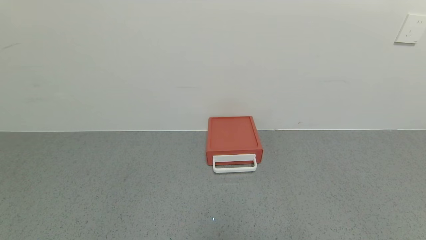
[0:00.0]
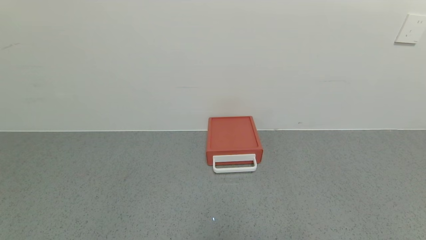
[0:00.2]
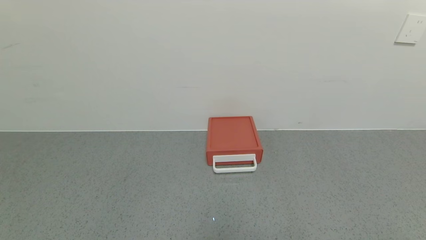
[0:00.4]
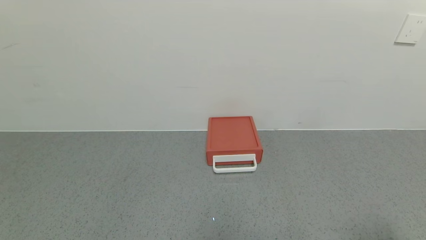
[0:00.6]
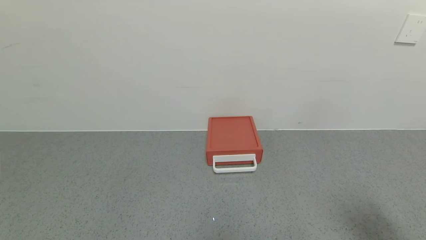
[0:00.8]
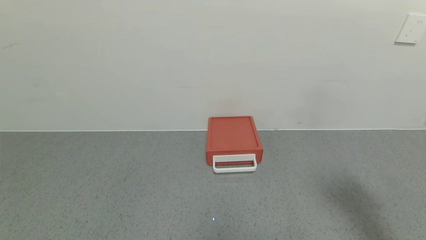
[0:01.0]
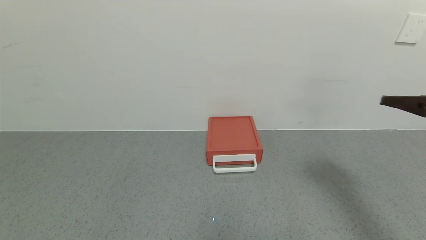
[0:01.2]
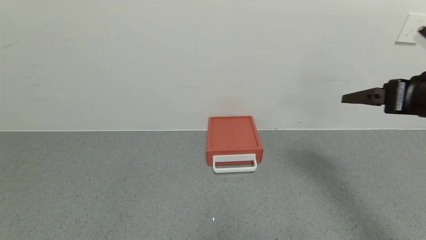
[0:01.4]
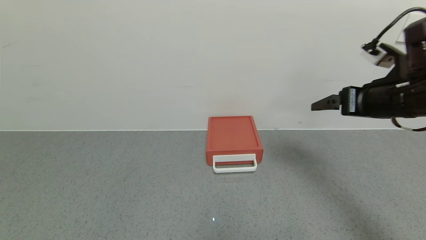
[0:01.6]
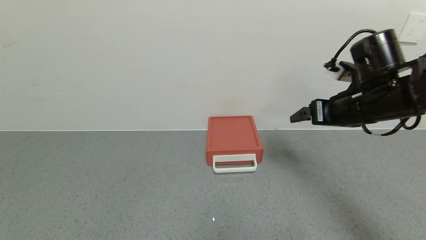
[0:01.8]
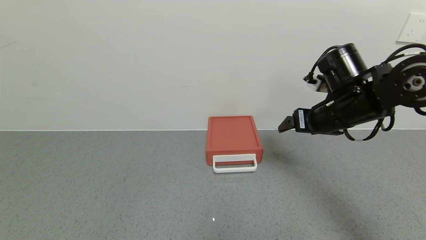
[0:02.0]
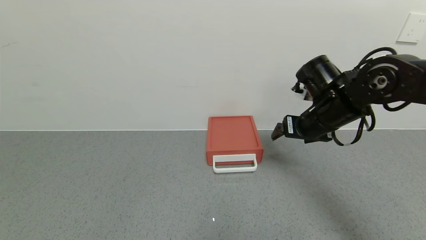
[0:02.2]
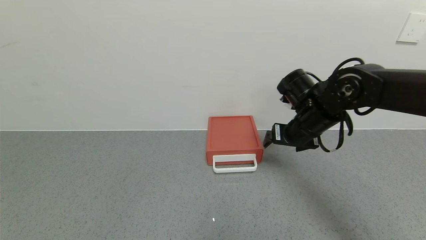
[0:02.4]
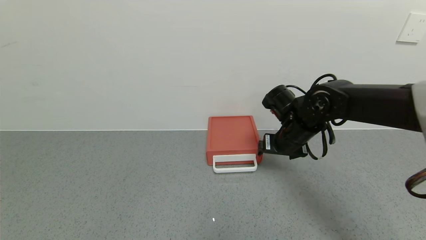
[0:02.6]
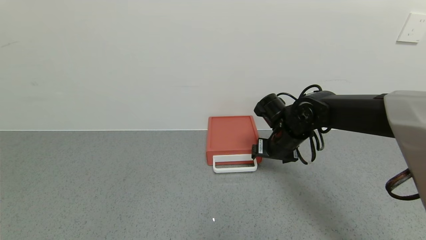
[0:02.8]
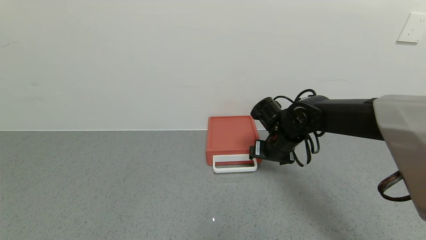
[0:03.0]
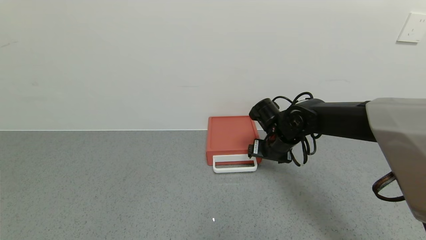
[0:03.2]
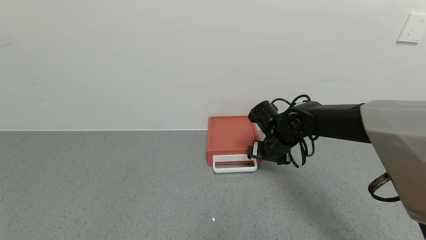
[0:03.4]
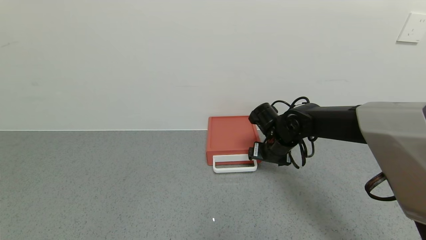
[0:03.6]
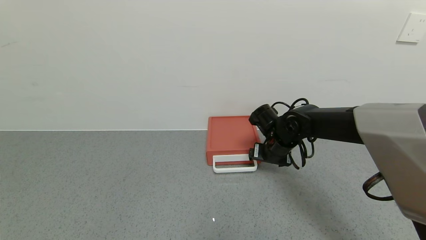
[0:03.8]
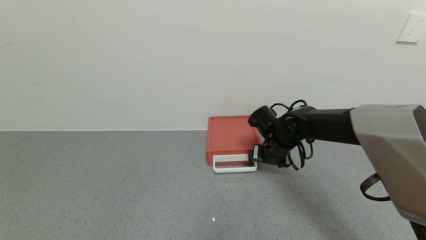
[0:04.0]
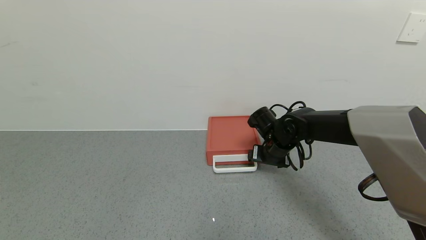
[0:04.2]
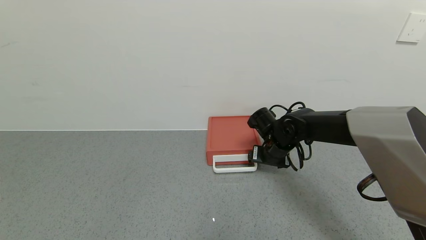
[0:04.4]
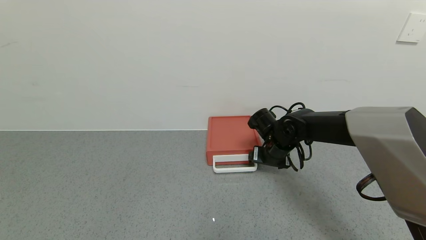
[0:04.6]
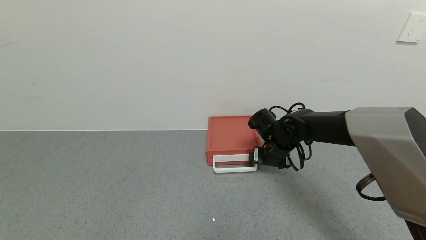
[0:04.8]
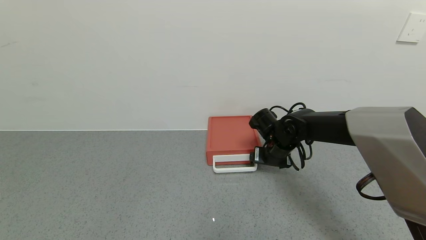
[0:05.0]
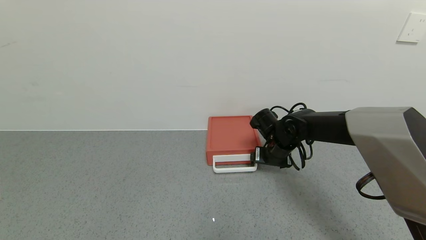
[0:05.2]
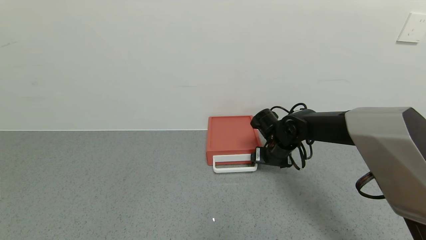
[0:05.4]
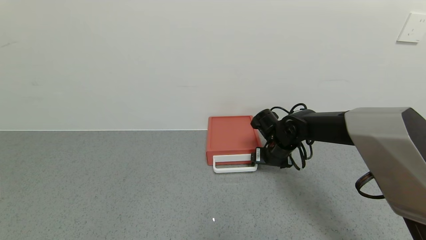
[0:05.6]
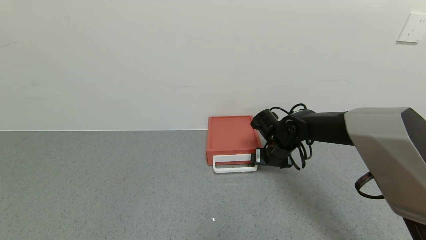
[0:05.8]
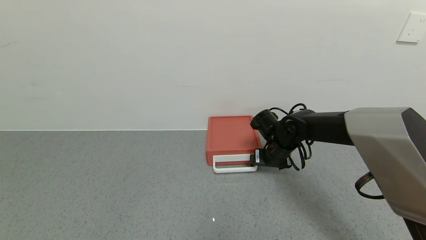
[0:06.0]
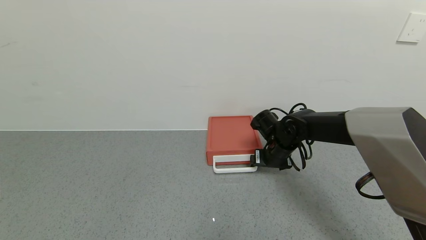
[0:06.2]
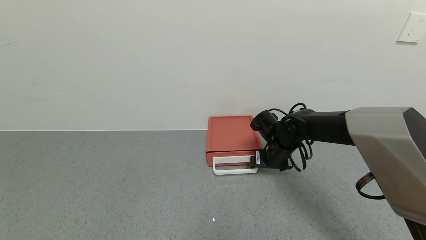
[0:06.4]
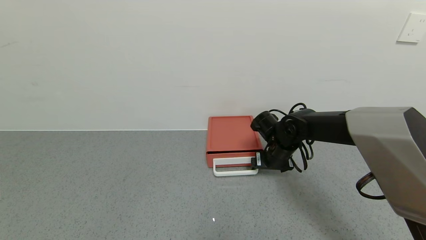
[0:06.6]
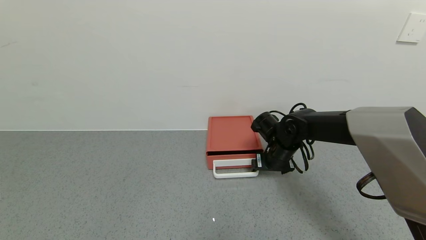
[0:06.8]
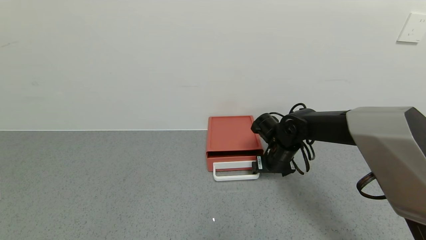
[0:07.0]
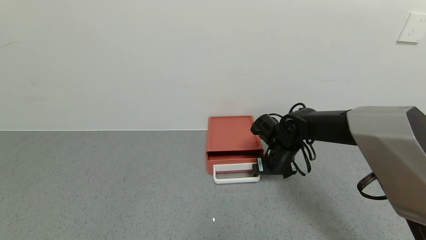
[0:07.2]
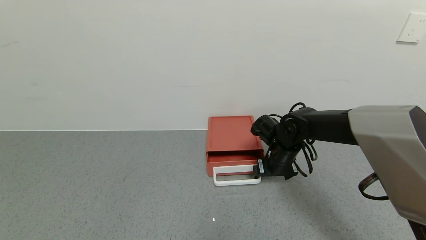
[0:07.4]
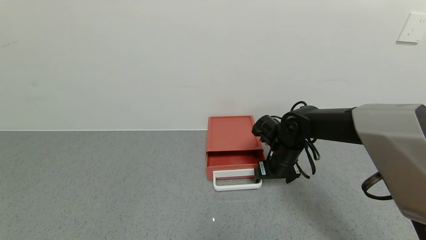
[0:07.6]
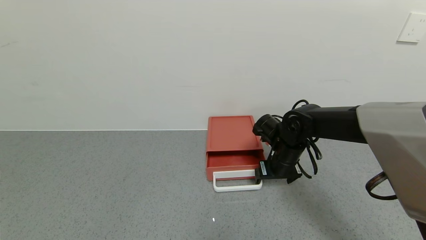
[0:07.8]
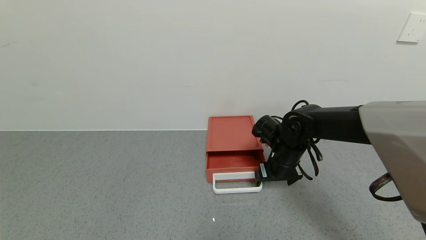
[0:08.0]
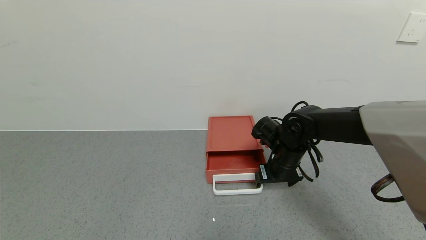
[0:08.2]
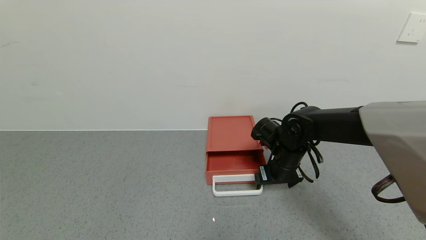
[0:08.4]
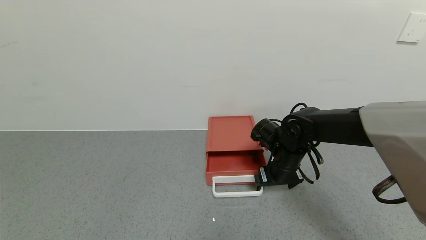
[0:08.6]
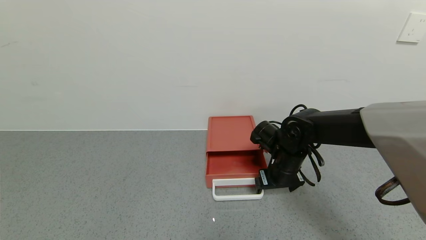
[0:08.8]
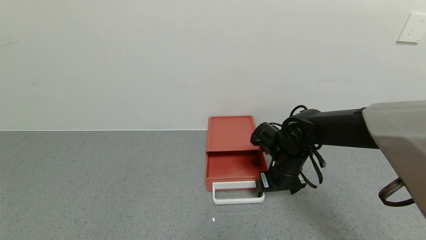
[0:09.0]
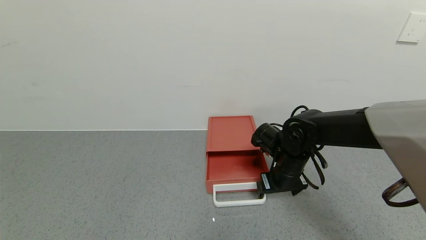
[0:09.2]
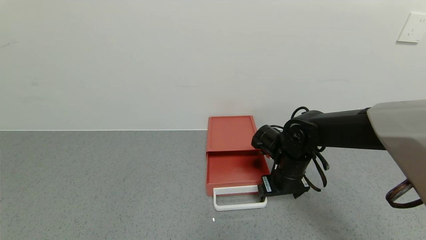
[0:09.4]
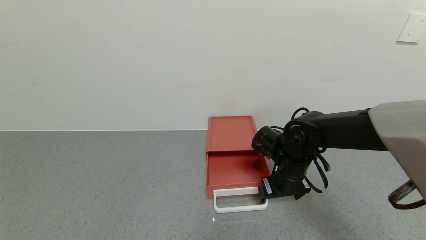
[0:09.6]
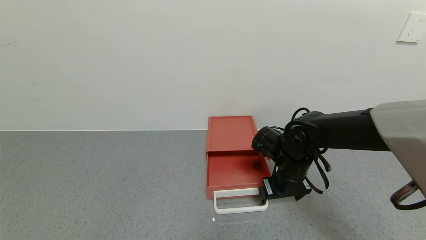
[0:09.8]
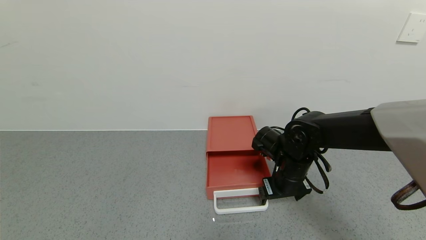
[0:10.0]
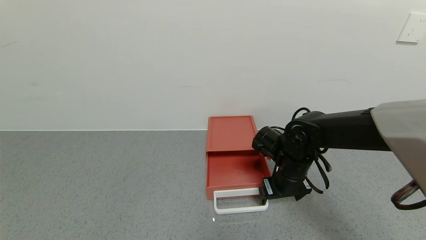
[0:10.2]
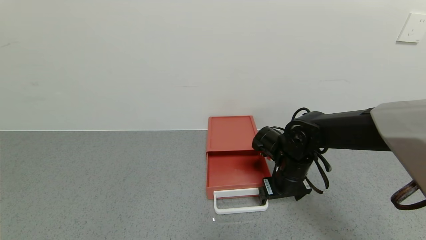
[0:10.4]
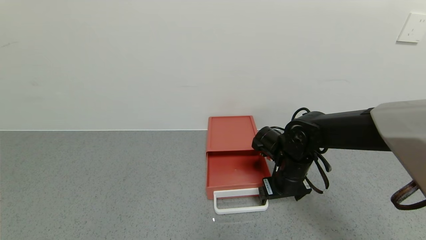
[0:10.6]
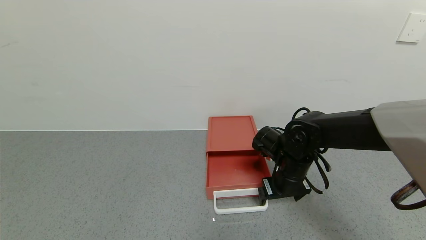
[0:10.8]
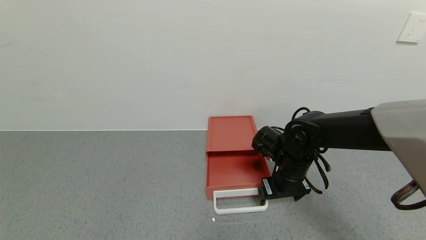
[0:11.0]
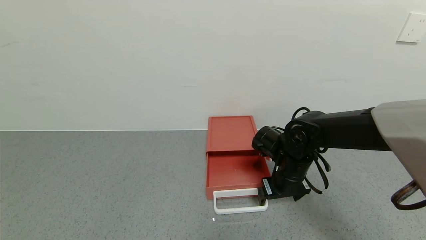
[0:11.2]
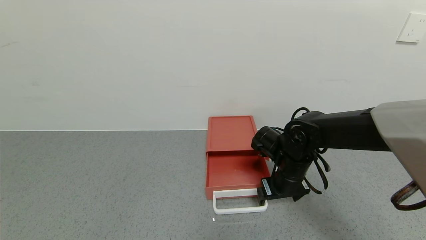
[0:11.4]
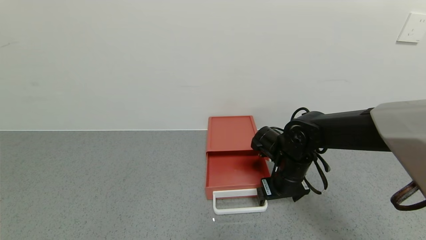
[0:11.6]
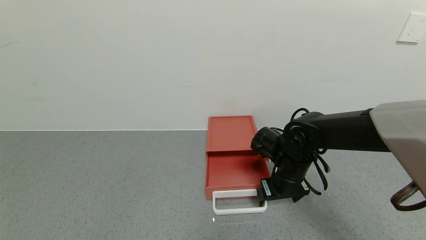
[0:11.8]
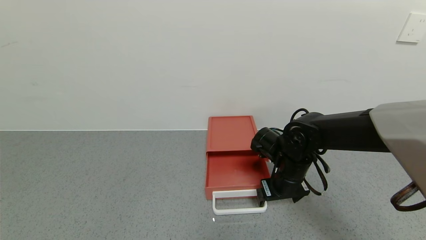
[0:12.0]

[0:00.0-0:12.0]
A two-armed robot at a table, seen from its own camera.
Task of the whole recording: use the gripper to open the drawer and close the red drawer.
0:00.0 to 0:01.6: The right gripper heads forward and upward, covering roughly 35 cm.
0:01.6 to 0:03.0: The right gripper shifts about 20 cm to the left, downward and forward.
0:03.0 to 0:07.6: The grippers move only a little.
0:07.6 to 0:10.4: The grippers stay close to where they were, moving slightly.
0:10.4 to 0:12.0: Neither gripper changes place.

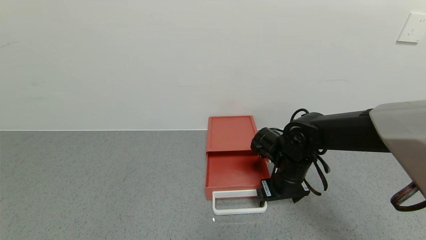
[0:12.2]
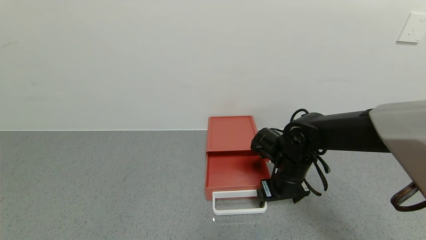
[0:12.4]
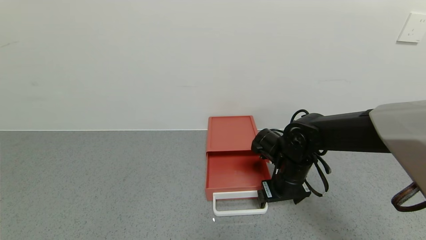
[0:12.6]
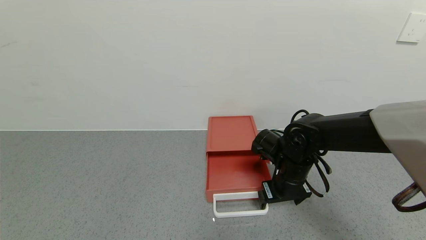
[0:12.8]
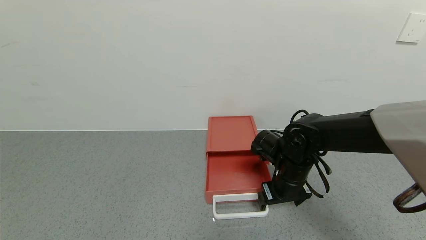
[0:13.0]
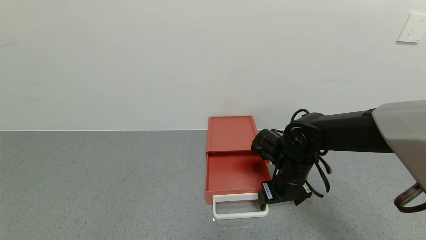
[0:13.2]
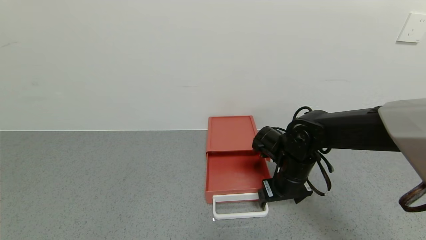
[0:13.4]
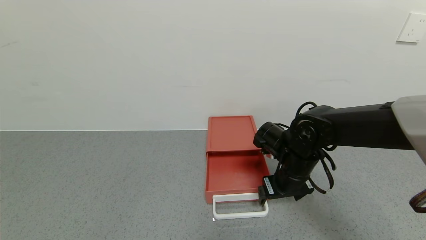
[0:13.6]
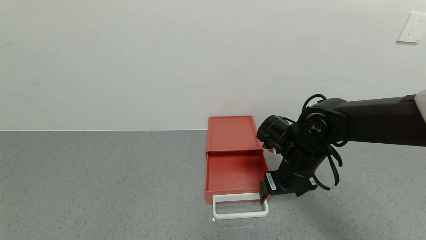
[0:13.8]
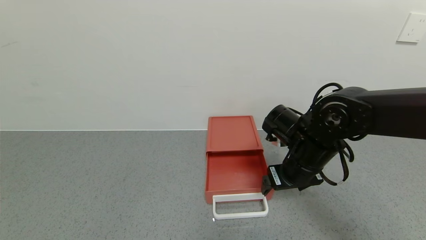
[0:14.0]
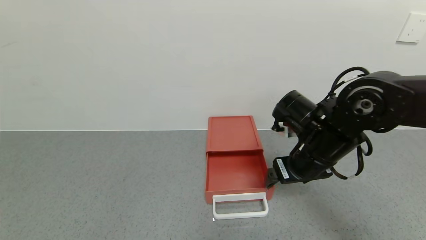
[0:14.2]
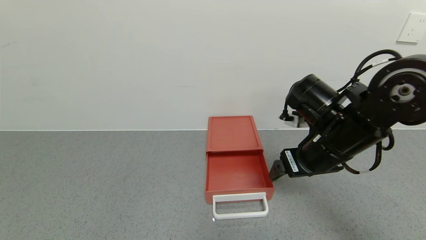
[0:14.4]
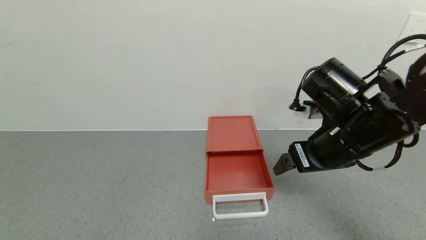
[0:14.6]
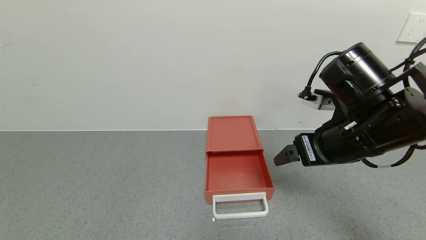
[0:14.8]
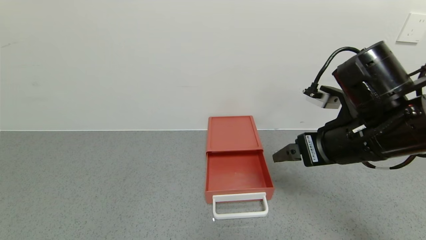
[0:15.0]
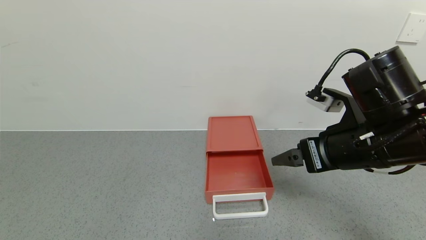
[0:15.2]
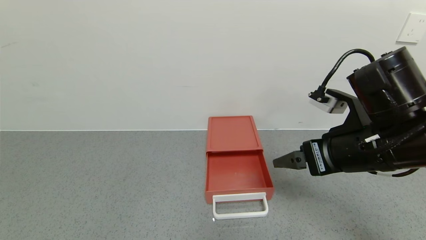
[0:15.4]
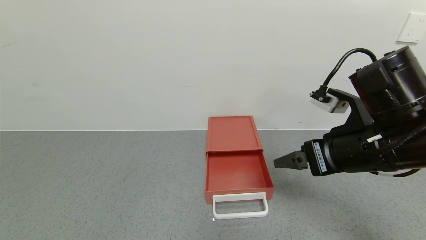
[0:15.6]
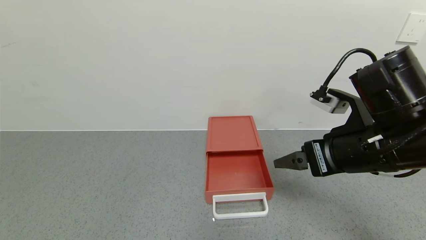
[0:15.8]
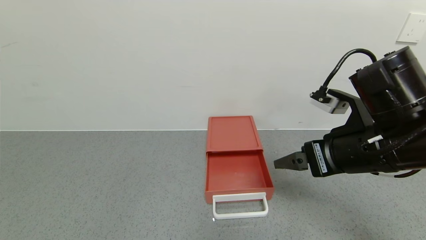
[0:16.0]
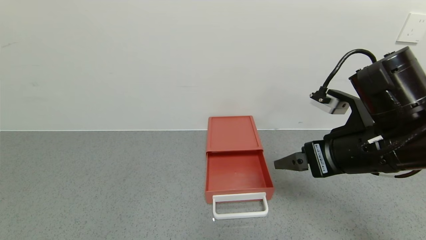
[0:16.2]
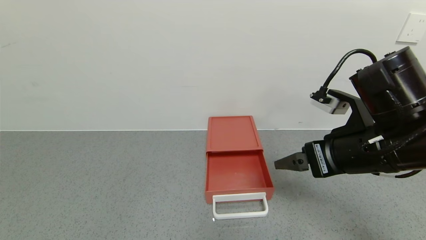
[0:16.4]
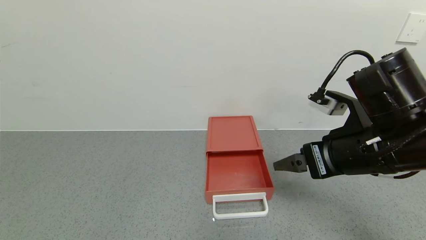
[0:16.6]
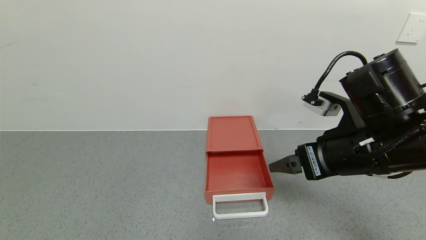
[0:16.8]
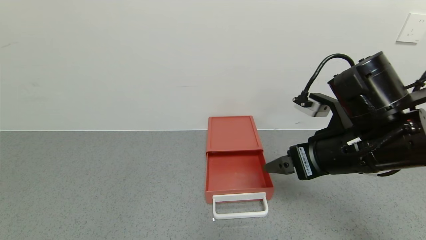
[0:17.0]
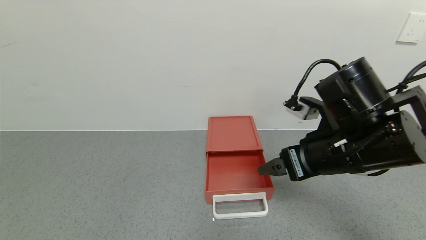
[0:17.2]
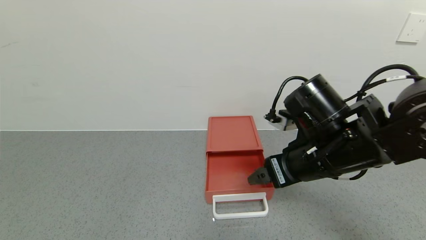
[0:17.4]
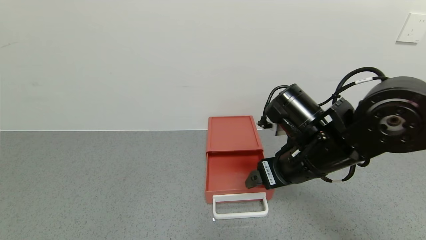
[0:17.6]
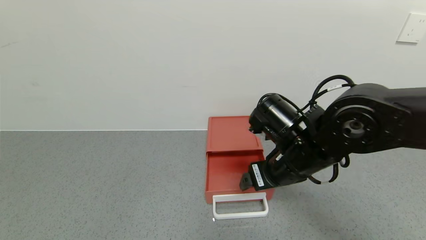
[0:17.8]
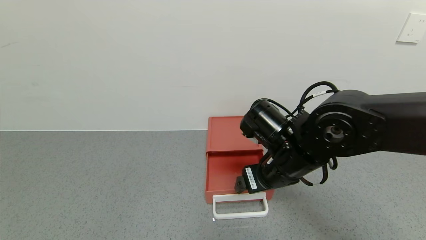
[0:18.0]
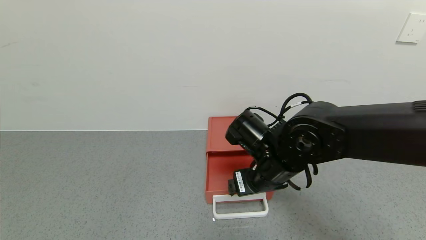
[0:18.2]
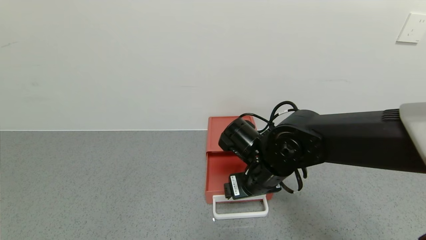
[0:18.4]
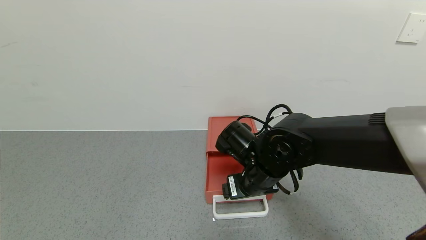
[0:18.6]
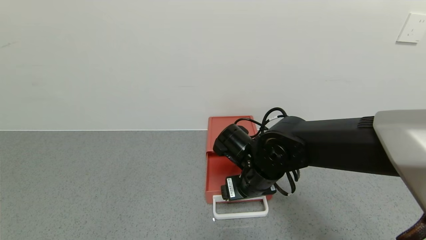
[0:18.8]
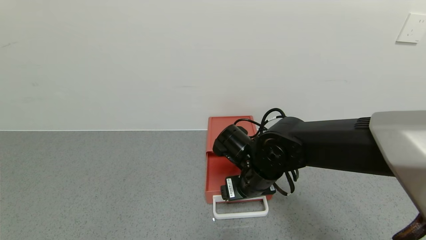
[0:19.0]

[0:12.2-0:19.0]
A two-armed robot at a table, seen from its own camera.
Task of the whole recording: use the gripper to open the drawer and close the red drawer.
0:12.2 to 0:13.6: There are only small adjustments of the grippers.
0:13.6 to 0:15.0: The right gripper goes approximately 15 cm upward and backward.
0:15.0 to 0:16.2: There are only small adjustments of the grippers.
0:16.2 to 0:17.6: The right gripper heads to the left, covering roughly 5 cm.
0:17.6 to 0:19.0: The right gripper heads downward and to the left, covering some 10 cm.
